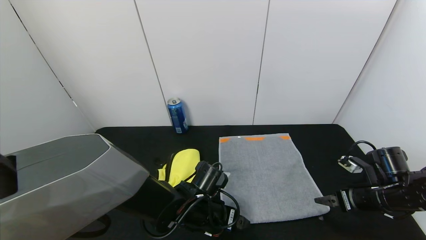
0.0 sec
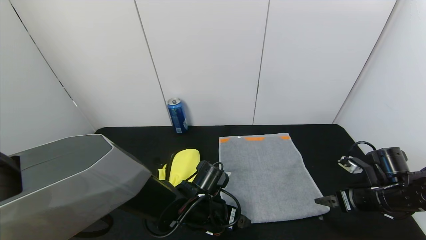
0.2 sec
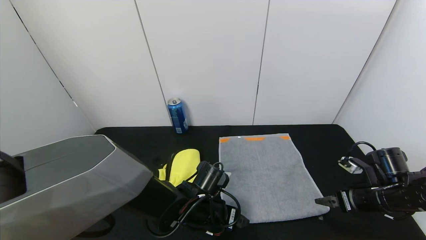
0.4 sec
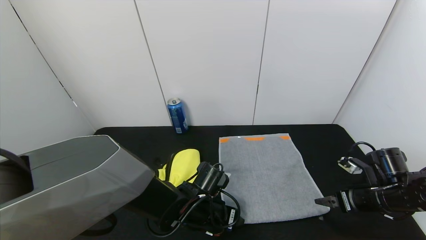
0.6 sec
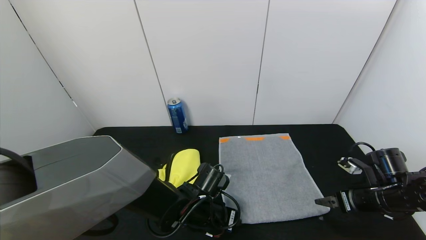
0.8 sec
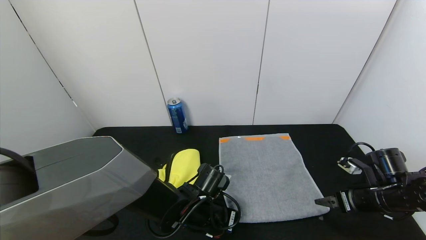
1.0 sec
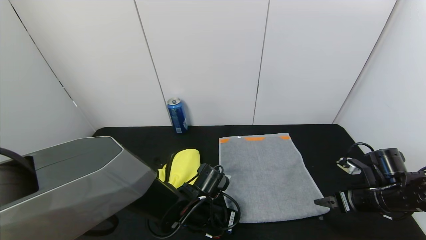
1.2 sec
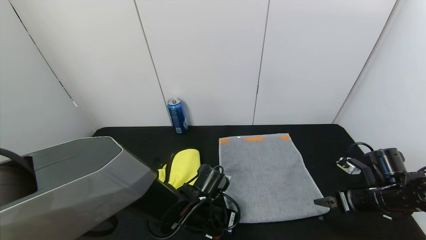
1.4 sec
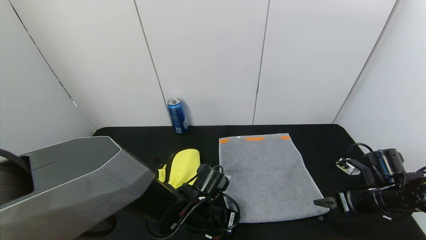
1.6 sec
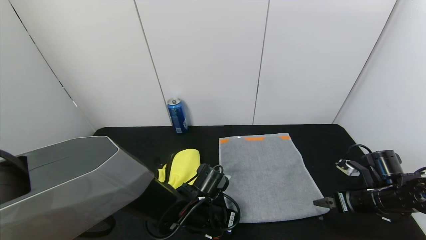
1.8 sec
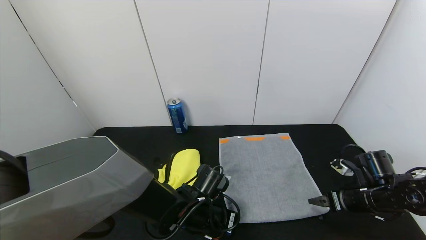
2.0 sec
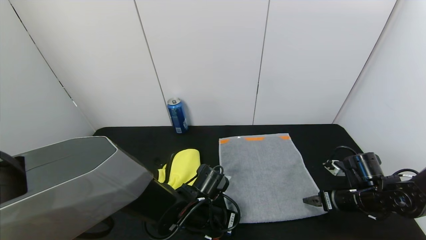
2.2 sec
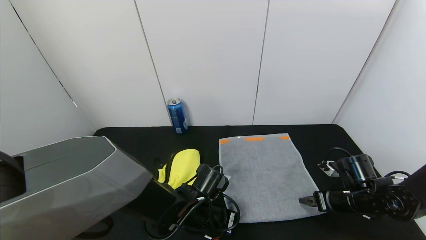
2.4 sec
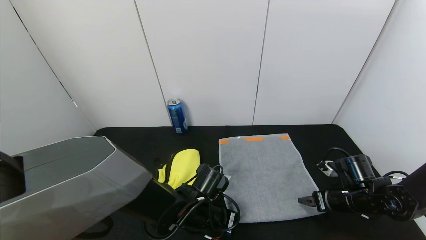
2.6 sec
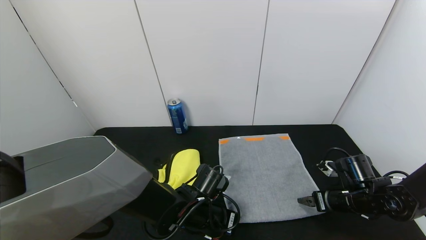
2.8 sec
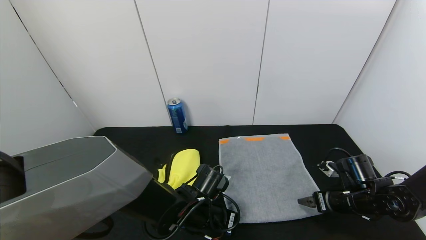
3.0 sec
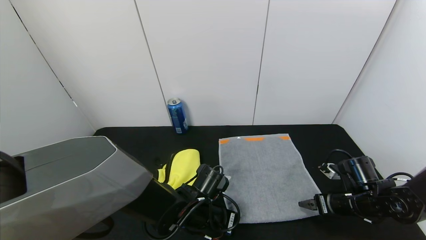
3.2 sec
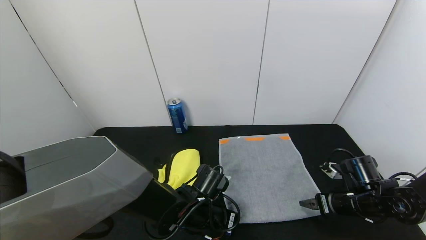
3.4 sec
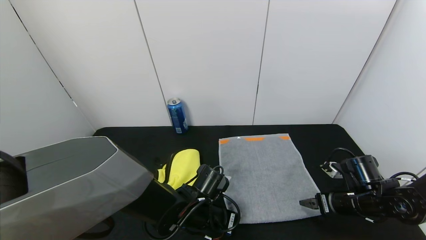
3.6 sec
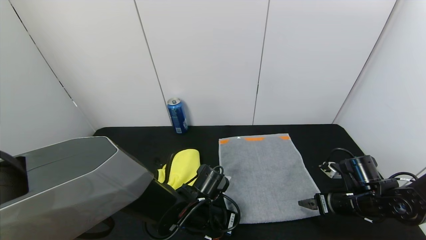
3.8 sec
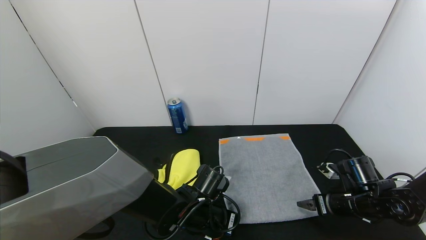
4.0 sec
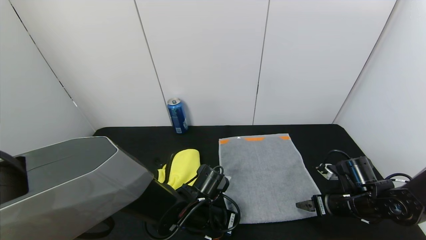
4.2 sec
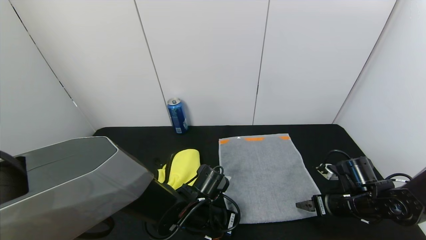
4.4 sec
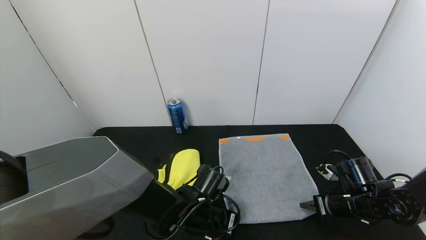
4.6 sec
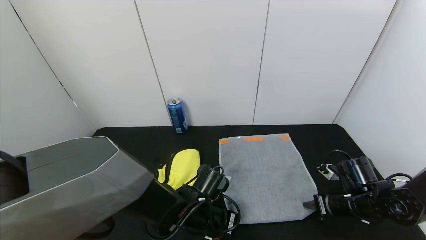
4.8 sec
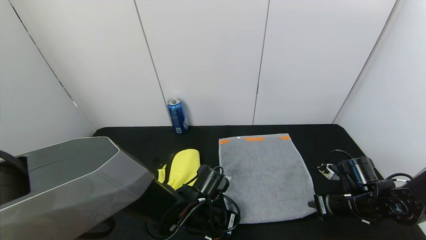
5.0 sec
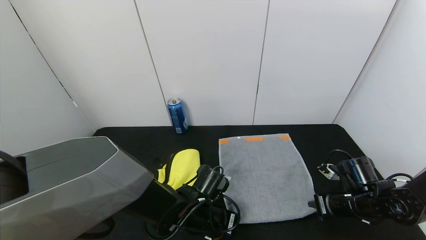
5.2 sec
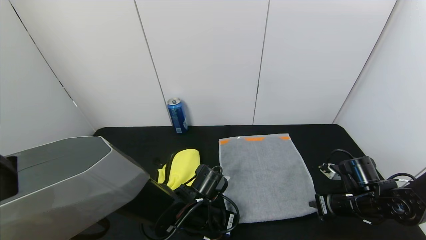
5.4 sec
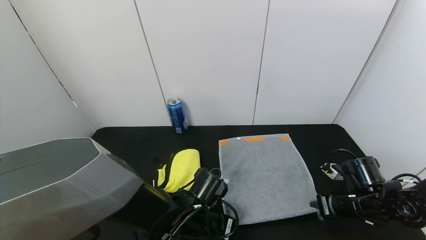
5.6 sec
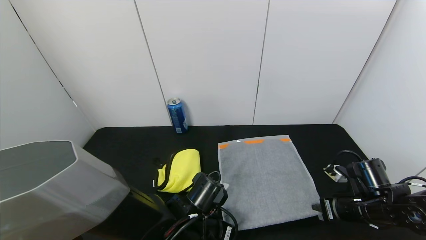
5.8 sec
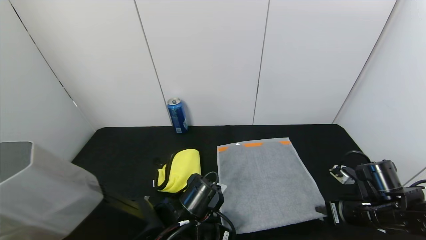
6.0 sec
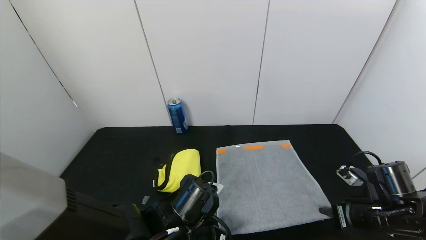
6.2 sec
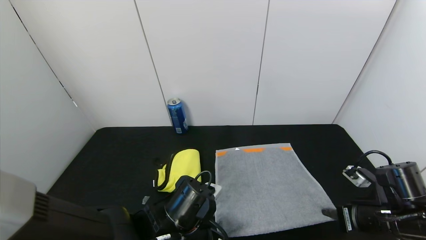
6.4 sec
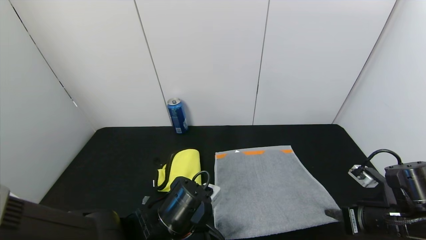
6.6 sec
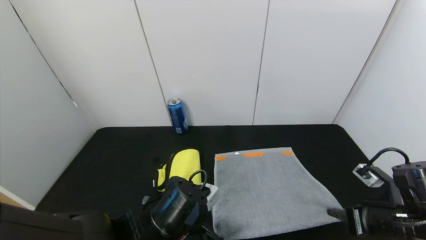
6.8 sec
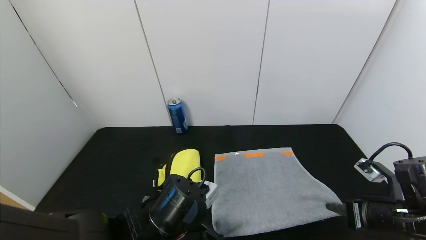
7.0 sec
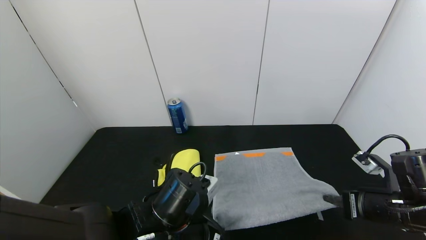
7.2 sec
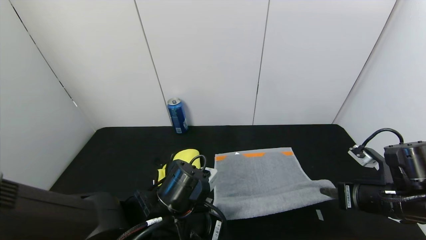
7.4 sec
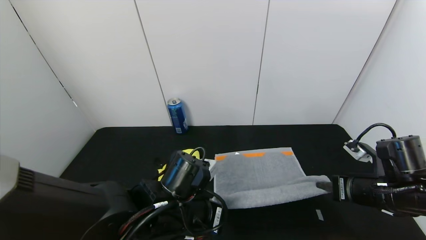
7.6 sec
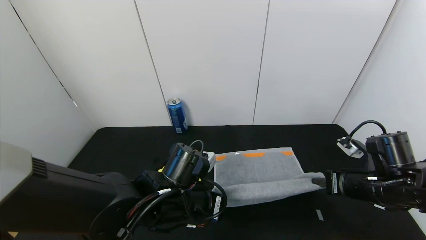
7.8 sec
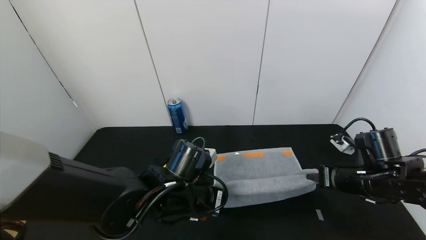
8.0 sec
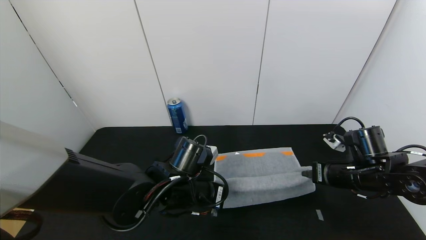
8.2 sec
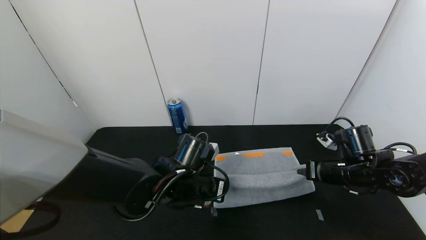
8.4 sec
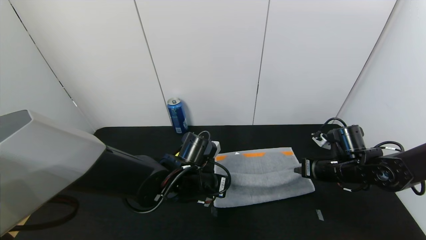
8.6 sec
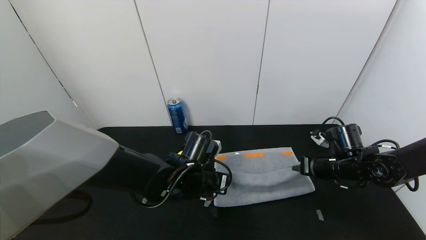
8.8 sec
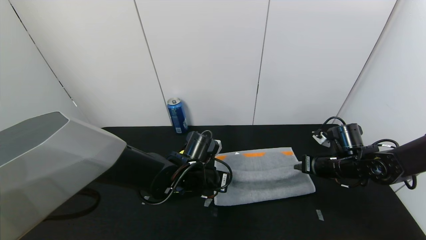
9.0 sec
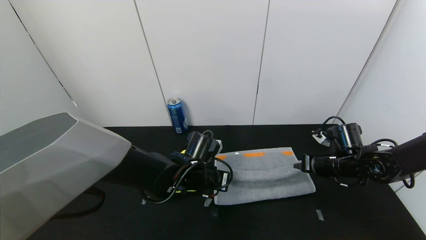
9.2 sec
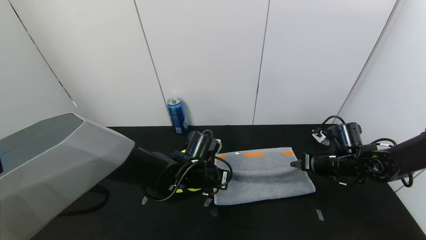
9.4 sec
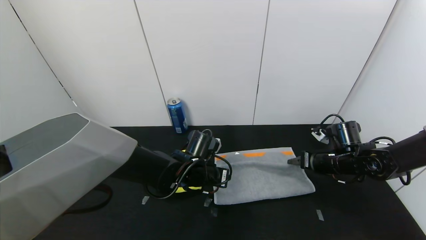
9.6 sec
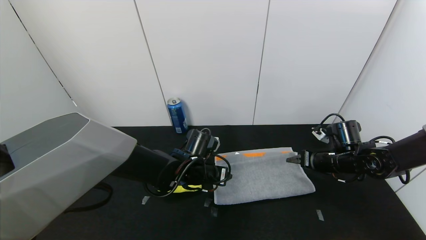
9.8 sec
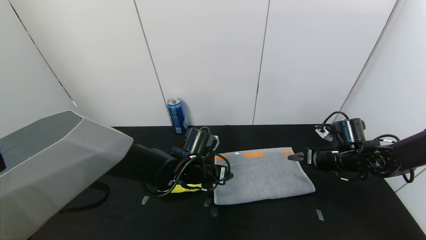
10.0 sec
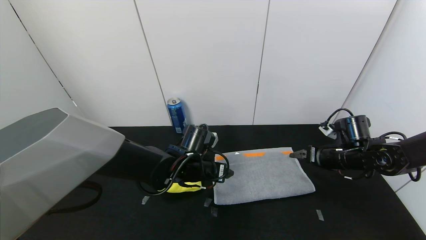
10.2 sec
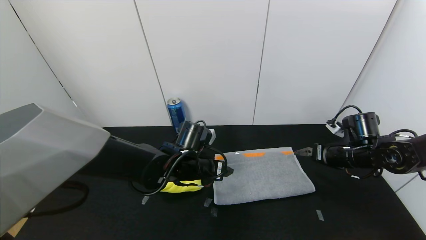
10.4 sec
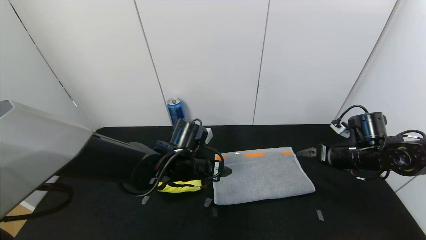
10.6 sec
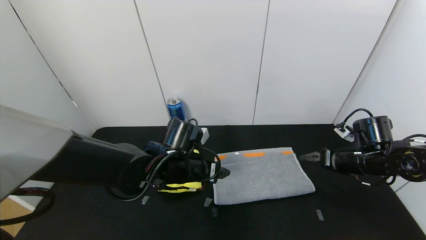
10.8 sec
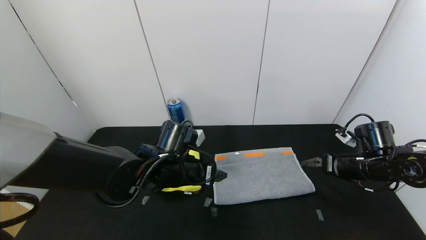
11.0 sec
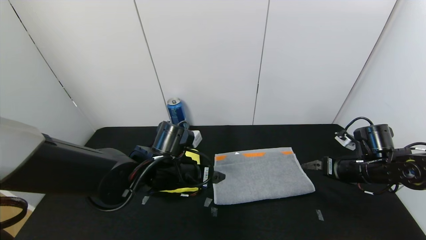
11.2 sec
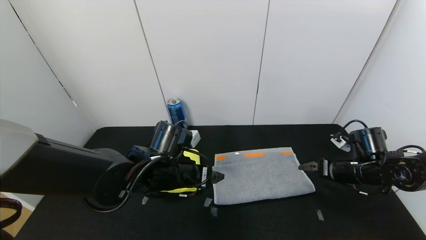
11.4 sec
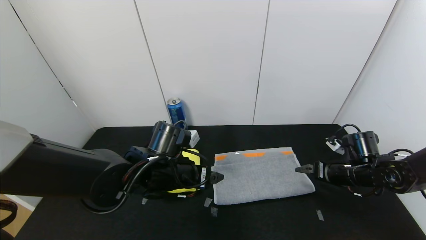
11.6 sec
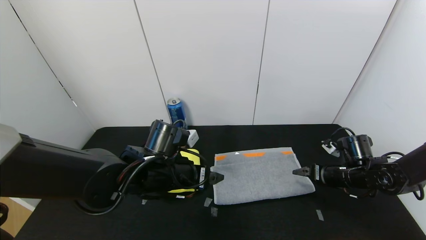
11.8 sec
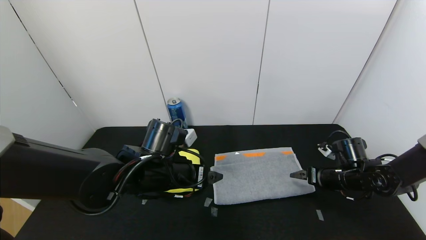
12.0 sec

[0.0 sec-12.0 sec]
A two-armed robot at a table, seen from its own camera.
Task of the whole recording: Use the gripper to fold the yellow towel and grey towel in half twice,then put the yellow towel on the grey towel.
Step, 0.0 sec to 10.0 sec: Fold the gray towel upwards with the left gripper.
Step, 0.0 sec to 10.0 sec: Fold the gray towel upwards with the right gripper.
0.0 sec to 1.6 sec: The left gripper closes.
1.6 sec to 3.0 sec: The right gripper shifts by approximately 5 cm.
3.0 sec to 4.4 sec: Neither gripper changes place.
4.4 sec to 6.0 sec: The left gripper travels backward by approximately 5 cm. Meanwhile the right gripper closes.
6.0 sec to 7.6 sec: The two grippers go approximately 5 cm upward.
7.6 sec to 9.0 sec: Both grippers move forward, approximately 10 cm.
9.0 sec to 10.4 sec: The right gripper opens, while the left gripper opens up.
10.4 sec to 12.0 sec: The right gripper shifts about 5 cm downward. The left gripper heads backward, covering approximately 5 cm.

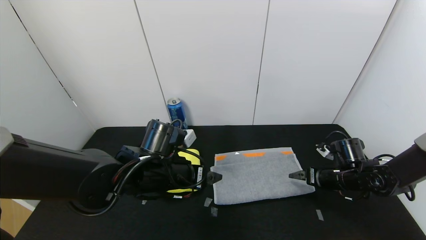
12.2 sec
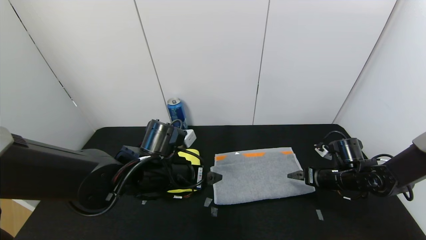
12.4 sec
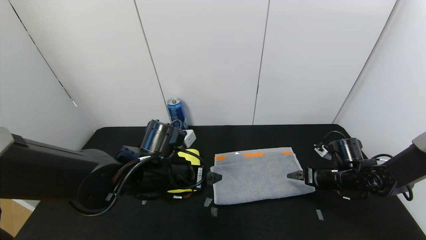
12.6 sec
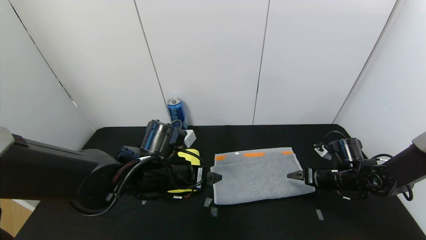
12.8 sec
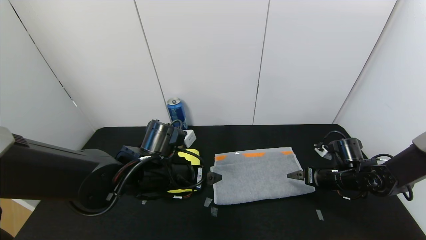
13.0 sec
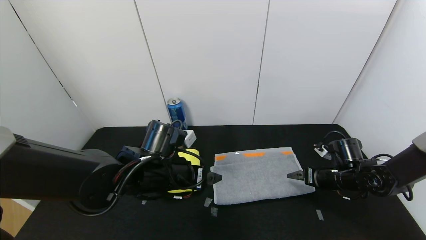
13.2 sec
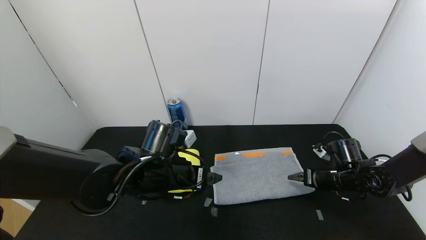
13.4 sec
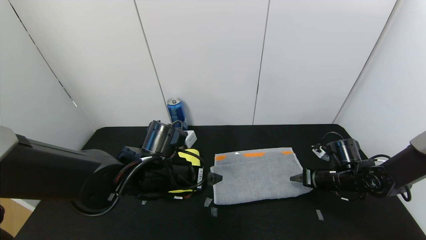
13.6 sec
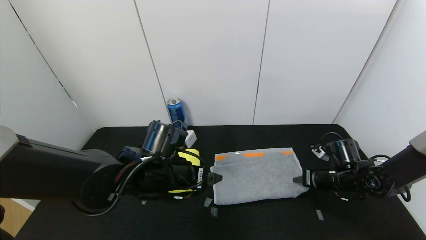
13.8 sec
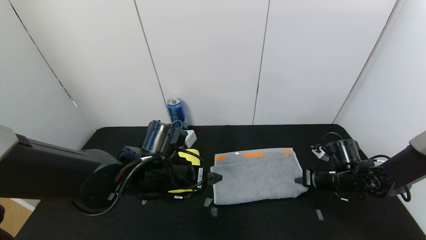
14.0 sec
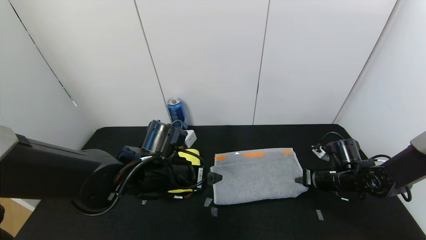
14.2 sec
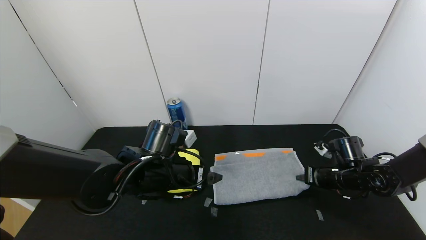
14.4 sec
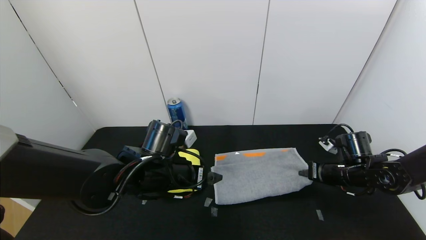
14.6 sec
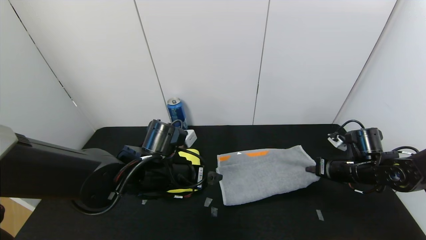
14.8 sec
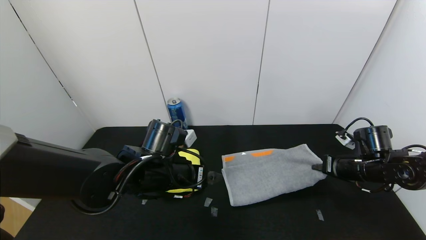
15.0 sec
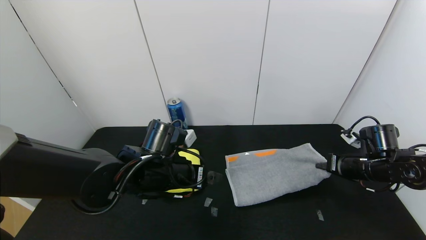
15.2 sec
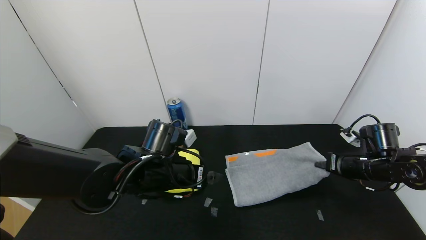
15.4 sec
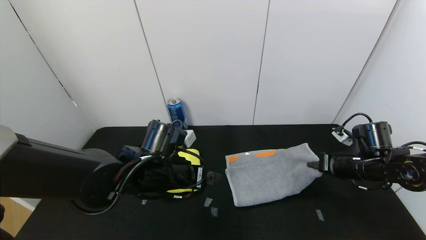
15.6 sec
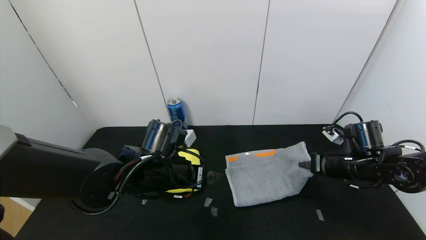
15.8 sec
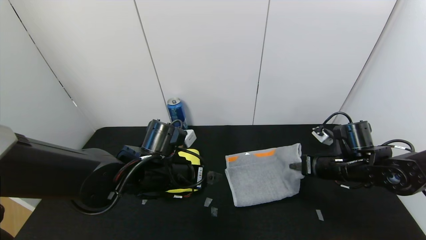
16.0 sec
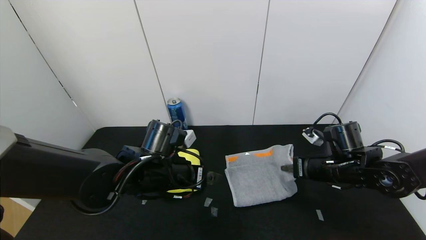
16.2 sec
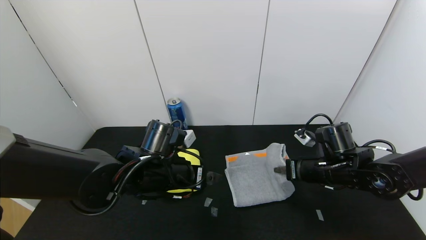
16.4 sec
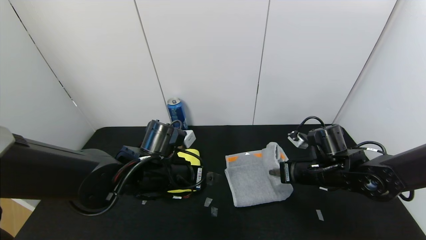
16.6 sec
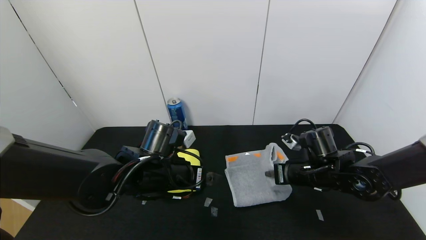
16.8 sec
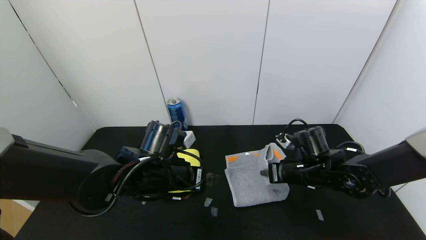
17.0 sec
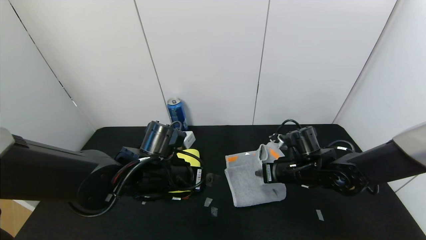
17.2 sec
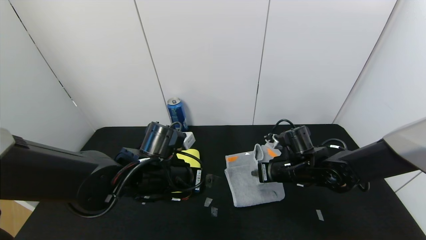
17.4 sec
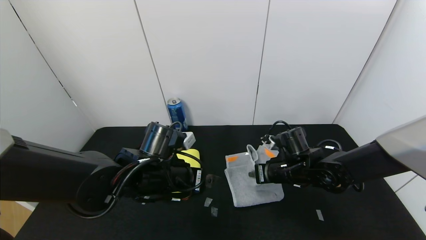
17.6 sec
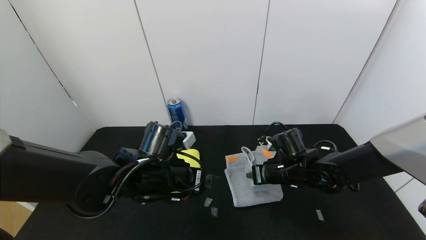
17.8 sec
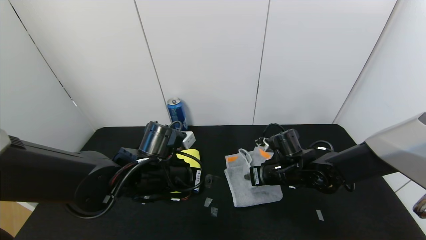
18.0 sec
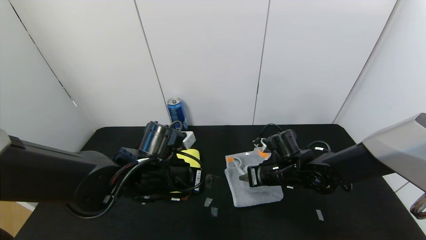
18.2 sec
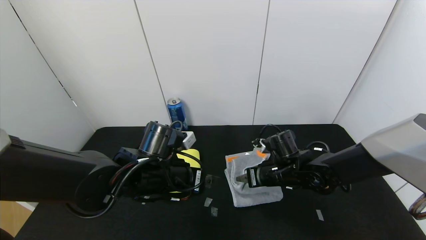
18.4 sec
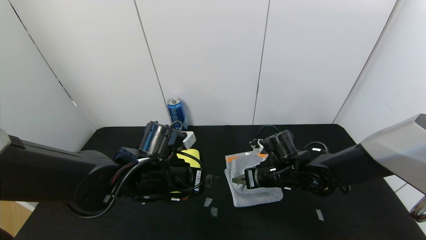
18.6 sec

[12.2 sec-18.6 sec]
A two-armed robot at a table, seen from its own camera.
Task of the whole recording: Use the gripper to fold the yellow towel and grey towel in half twice,then put the yellow towel on the grey towel.
12.2 sec to 13.8 sec: The right gripper closes its fingers.
13.8 sec to 15.4 sec: The right gripper moves upward, roughly 5 cm.
15.4 sec to 17.0 sec: The right gripper travels to the left by some 15 cm.
17.0 sec to 18.6 sec: The right gripper goes roughly 5 cm to the left, and opens up.
